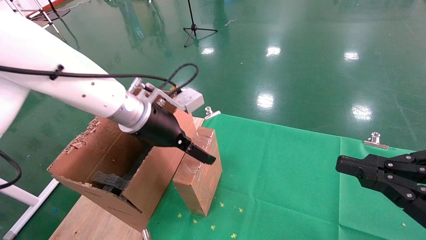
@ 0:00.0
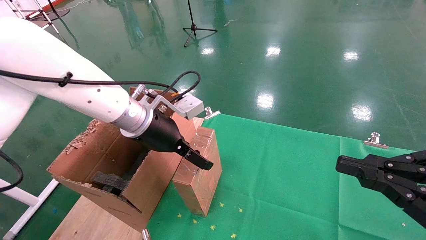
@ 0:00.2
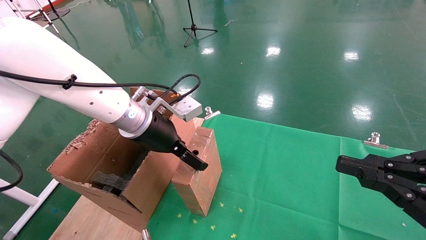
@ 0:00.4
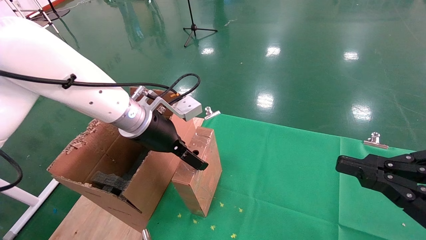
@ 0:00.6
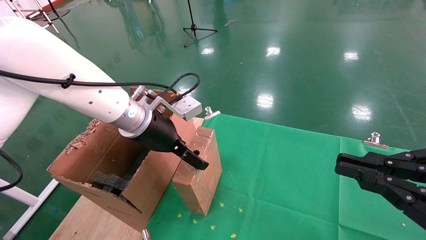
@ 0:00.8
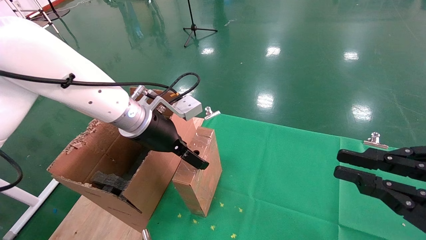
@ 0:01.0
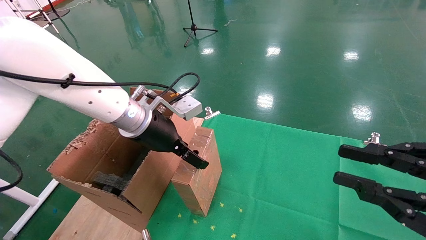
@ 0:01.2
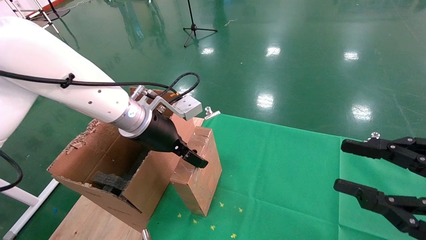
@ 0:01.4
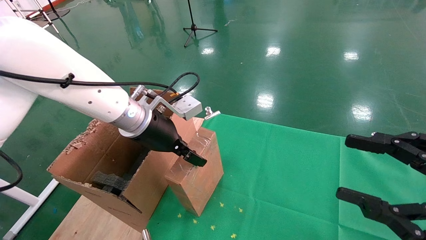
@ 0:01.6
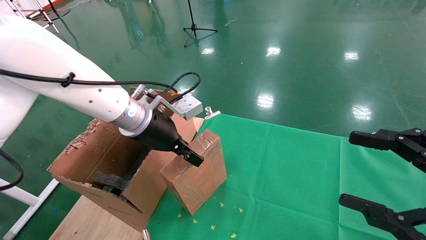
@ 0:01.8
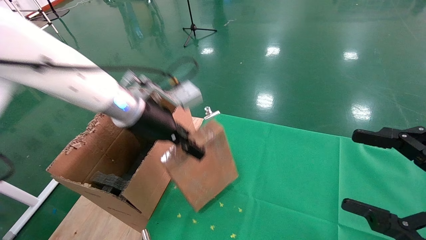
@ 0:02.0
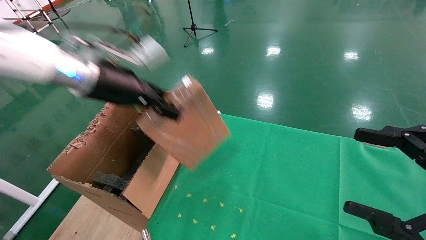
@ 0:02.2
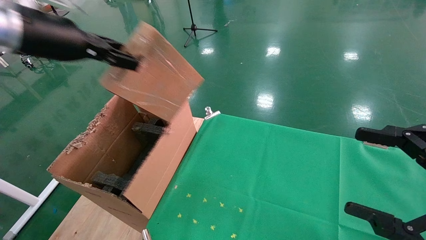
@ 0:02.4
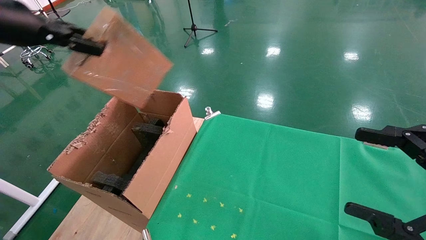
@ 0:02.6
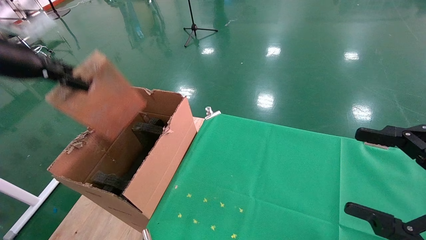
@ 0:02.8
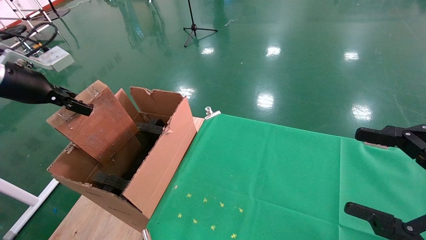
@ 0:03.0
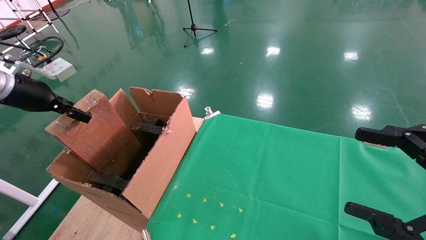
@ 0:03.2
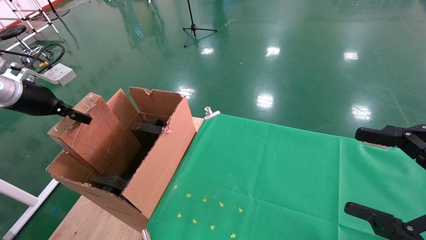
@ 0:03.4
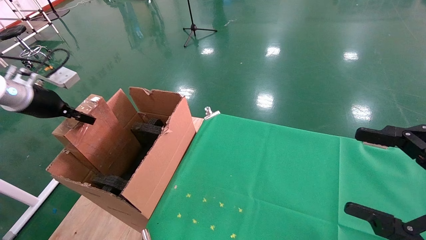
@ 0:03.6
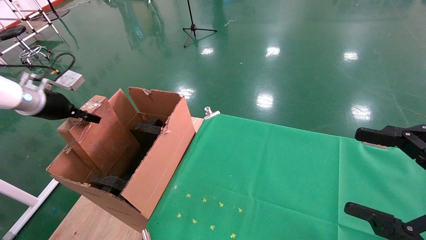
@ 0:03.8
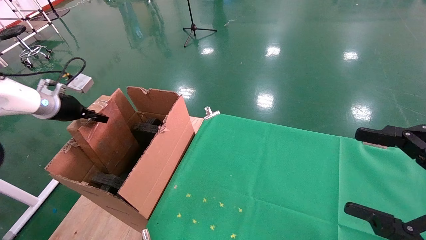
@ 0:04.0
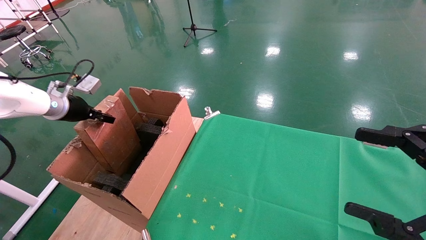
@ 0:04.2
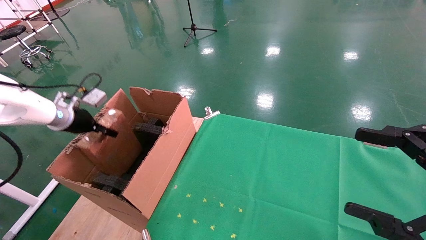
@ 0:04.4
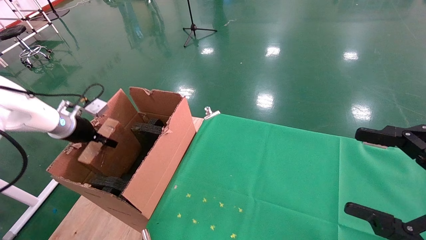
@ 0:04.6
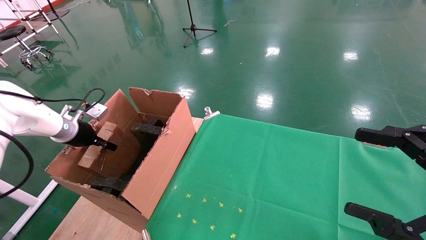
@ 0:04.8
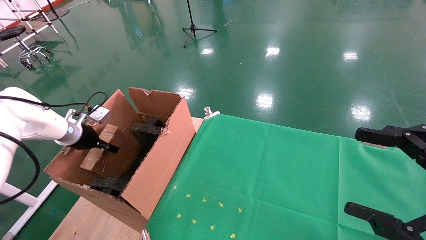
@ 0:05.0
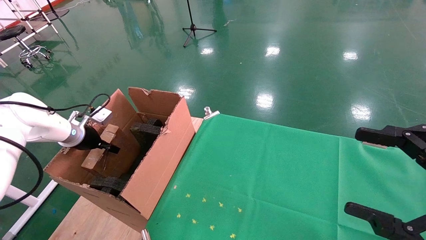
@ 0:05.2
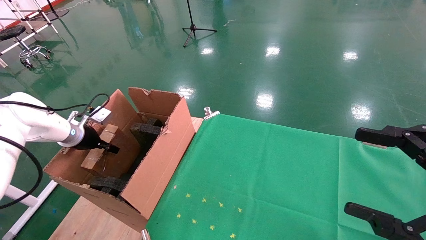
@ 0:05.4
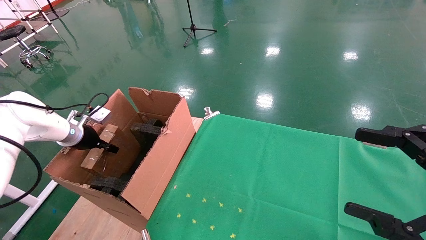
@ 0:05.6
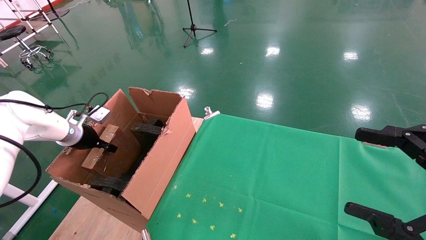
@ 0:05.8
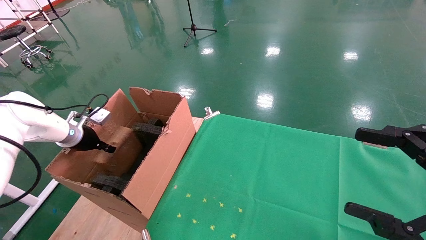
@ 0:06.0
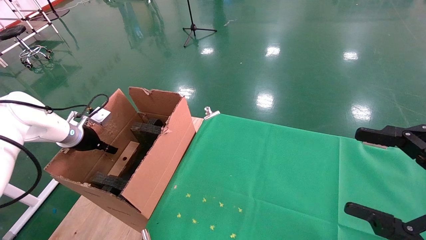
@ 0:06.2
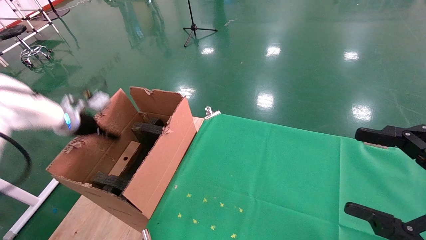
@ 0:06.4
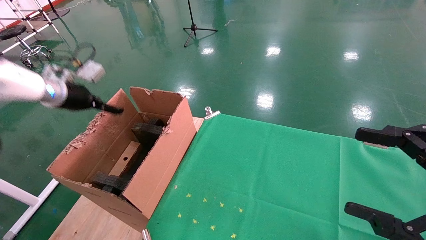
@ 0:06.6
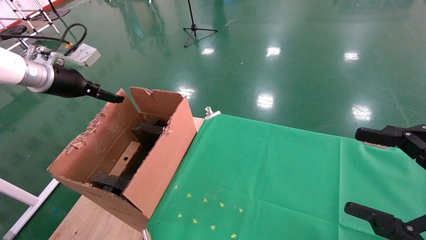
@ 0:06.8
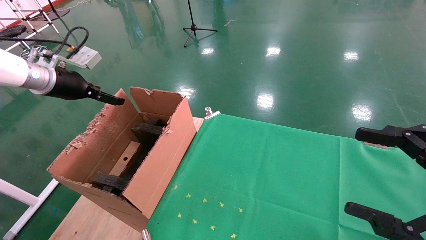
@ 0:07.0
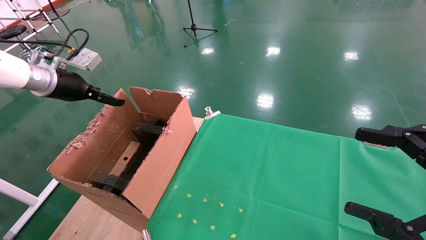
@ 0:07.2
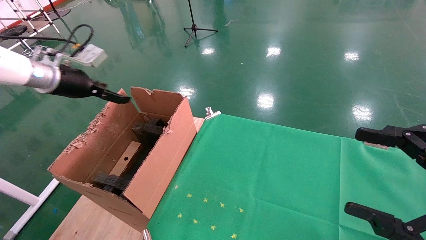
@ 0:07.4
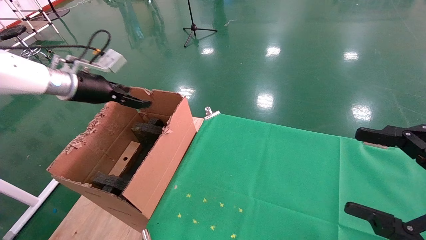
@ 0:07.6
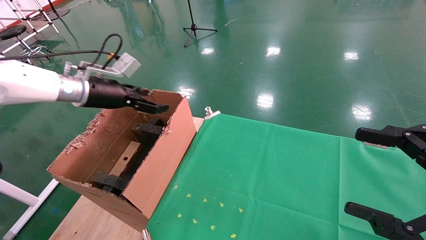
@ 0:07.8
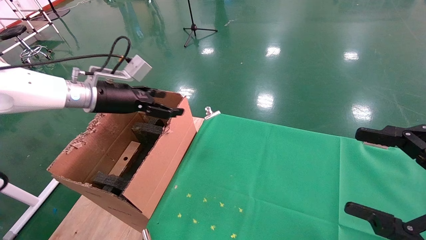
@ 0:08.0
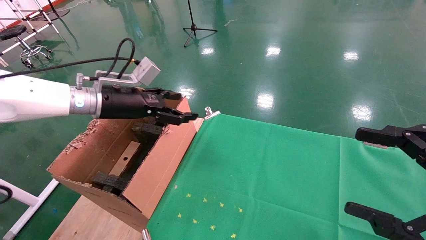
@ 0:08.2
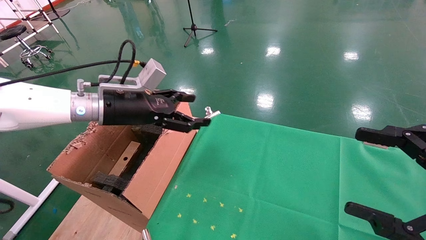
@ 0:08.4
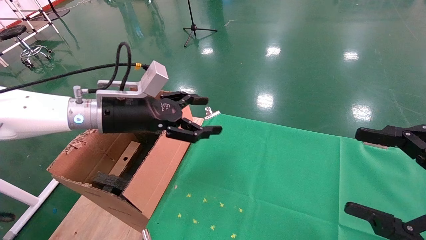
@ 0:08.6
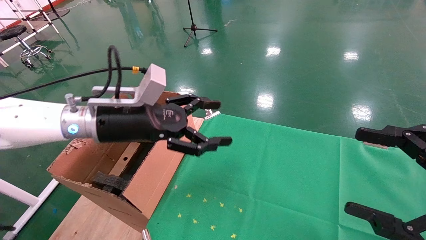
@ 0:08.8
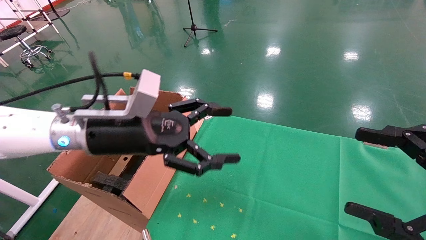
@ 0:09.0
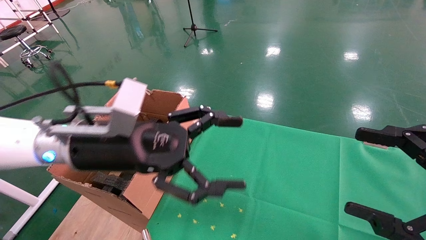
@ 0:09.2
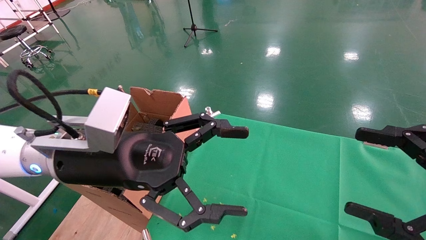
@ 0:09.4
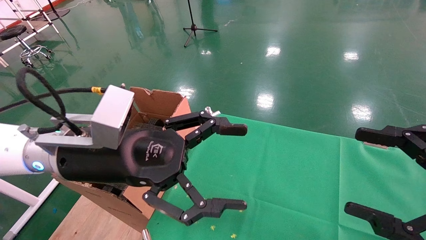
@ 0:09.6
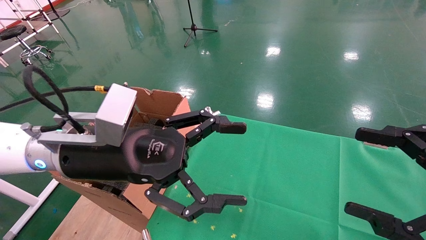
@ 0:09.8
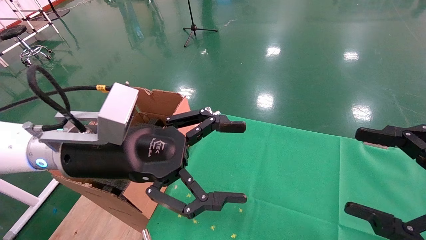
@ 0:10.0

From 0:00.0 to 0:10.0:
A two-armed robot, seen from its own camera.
Task of the whole recording: using a robotic arm to pick up a cardboard box and palace it the carton.
Step, from 0:01.8 to 0:06.6: Place the mouse and the power cord paper box into the container.
From 0:00.0 to 0:01.4: Both grippers stay about where they are.
From 0:01.4 to 0:02.8: The right gripper opens; the left gripper goes some 30 cm to the left and upward, and closes.
From 0:02.8 to 0:04.2: The left gripper travels downward and forward by approximately 20 cm.
From 0:04.2 to 0:05.8: The left gripper shifts roughly 5 cm downward.
From 0:05.8 to 0:07.2: The left gripper travels upward by roughly 15 cm, and opens.
From 0:07.2 to 0:08.6: The left gripper shifts about 20 cm to the right.
From 0:08.6 to 0:10.0: The left gripper heads backward and to the right, covering about 10 cm.

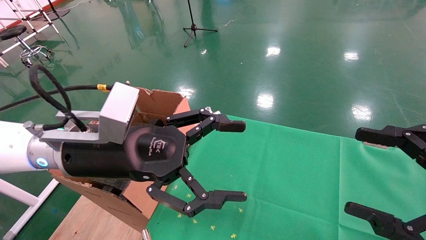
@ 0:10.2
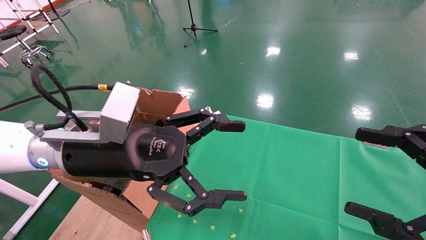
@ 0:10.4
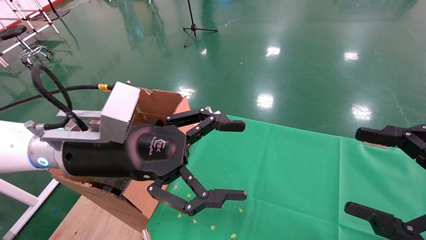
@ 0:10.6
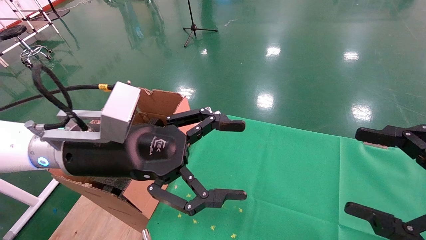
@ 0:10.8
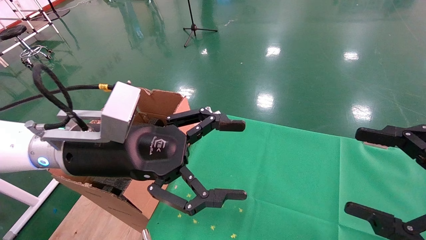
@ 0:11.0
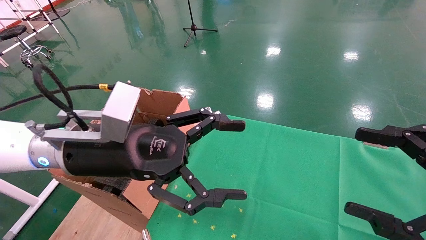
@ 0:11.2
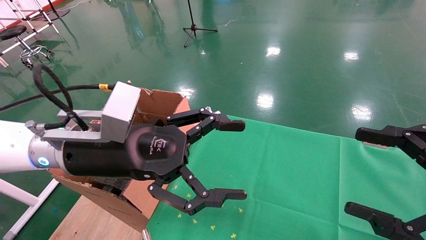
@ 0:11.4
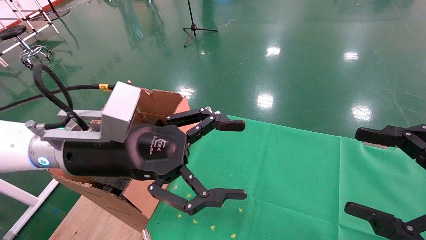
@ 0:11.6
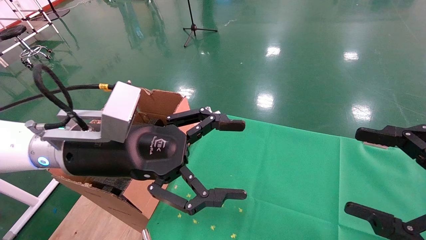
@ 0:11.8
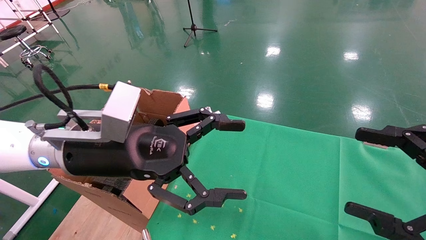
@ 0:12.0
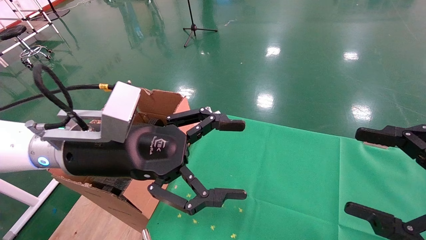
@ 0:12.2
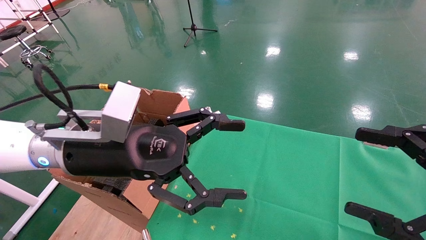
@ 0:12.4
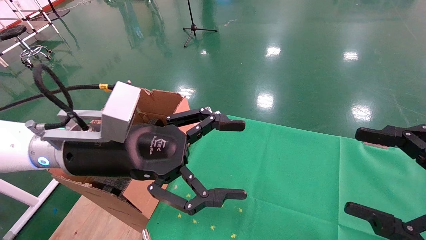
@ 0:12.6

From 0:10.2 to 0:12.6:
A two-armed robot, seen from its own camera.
Task of the whole recording: using a robotic arm to pick up a cardboard box and palace it the carton.
From 0:10.2 to 0:12.6: Both grippers stay about where they are.
